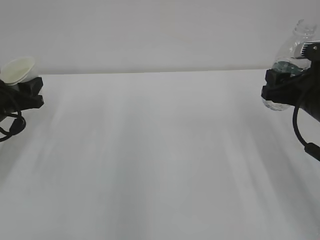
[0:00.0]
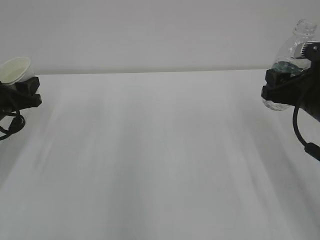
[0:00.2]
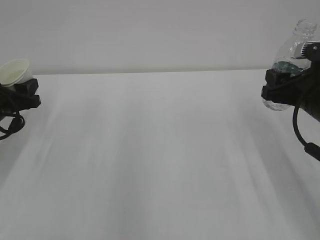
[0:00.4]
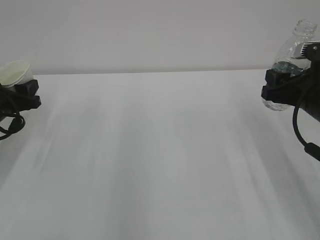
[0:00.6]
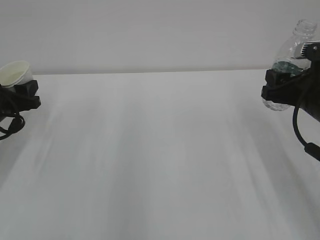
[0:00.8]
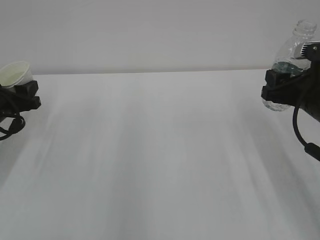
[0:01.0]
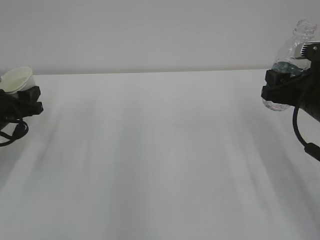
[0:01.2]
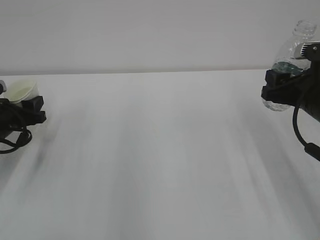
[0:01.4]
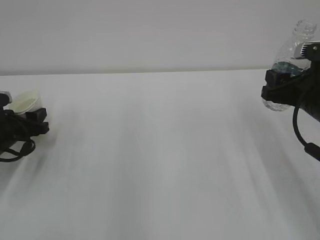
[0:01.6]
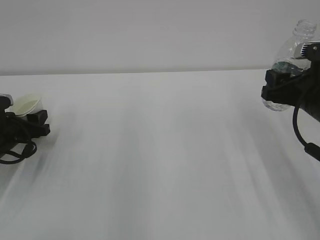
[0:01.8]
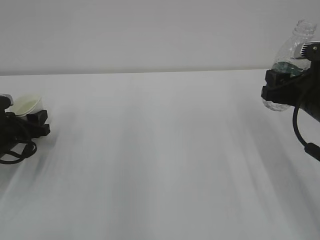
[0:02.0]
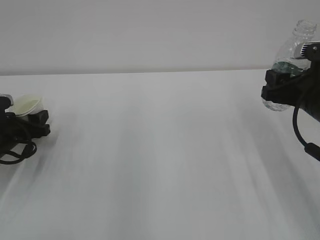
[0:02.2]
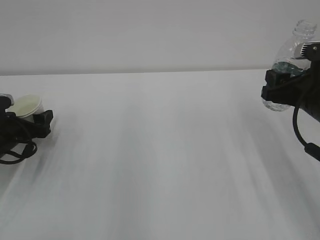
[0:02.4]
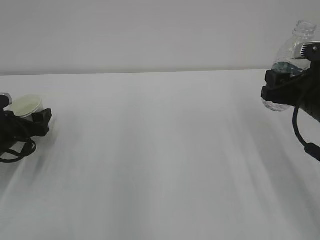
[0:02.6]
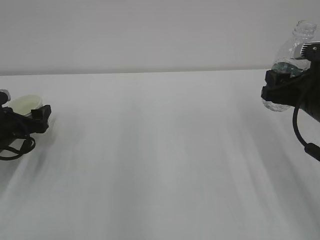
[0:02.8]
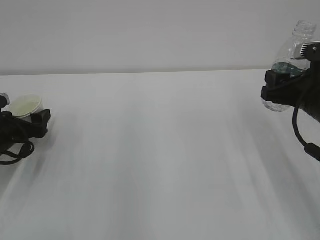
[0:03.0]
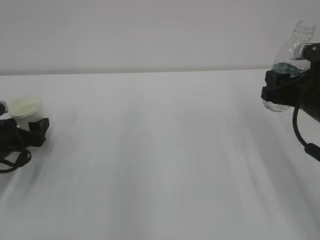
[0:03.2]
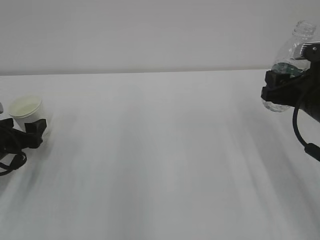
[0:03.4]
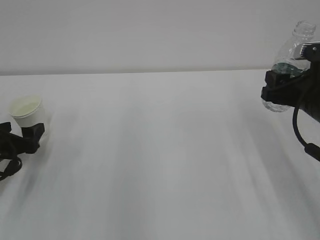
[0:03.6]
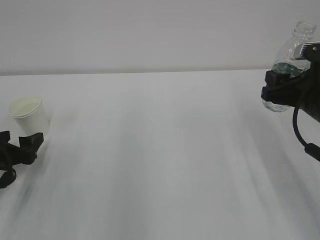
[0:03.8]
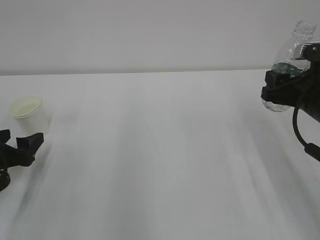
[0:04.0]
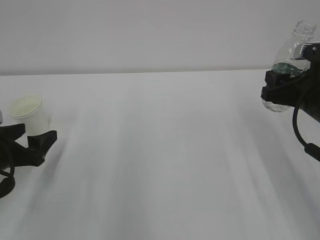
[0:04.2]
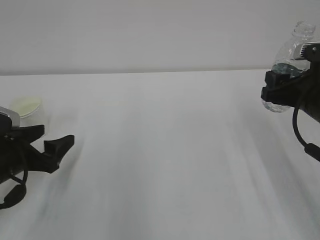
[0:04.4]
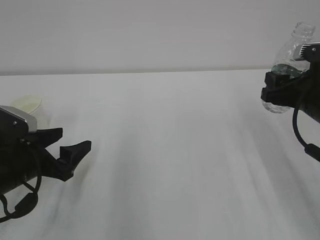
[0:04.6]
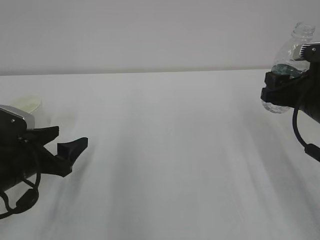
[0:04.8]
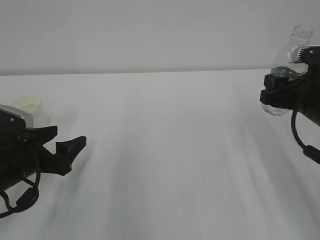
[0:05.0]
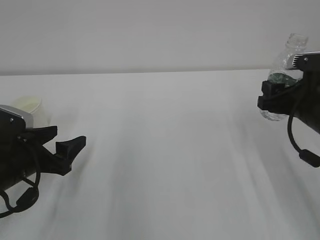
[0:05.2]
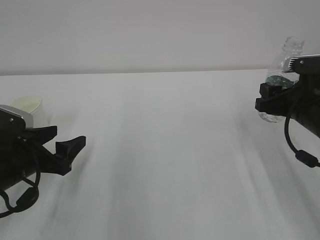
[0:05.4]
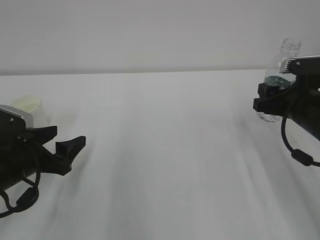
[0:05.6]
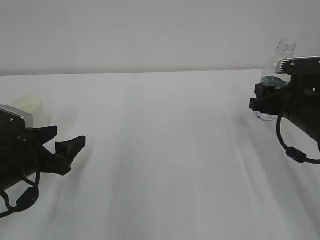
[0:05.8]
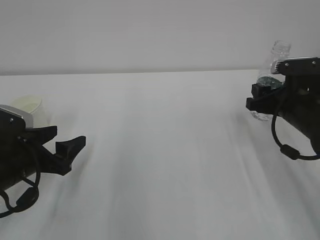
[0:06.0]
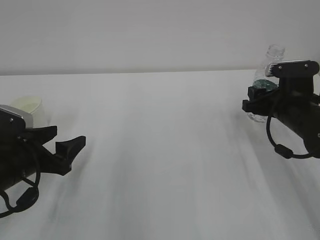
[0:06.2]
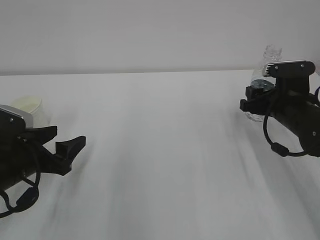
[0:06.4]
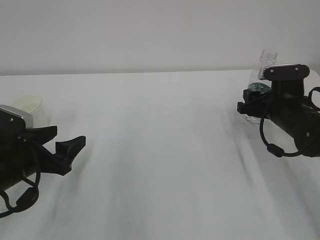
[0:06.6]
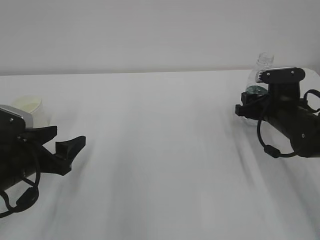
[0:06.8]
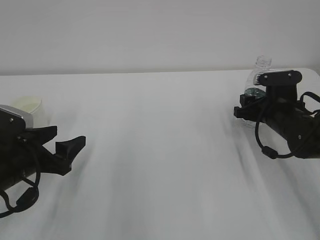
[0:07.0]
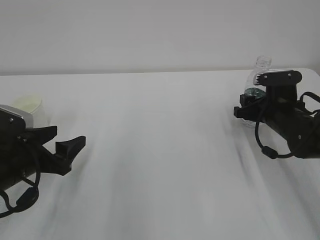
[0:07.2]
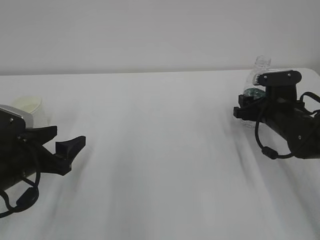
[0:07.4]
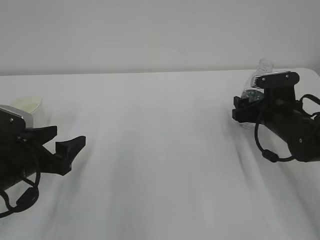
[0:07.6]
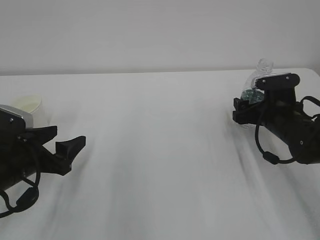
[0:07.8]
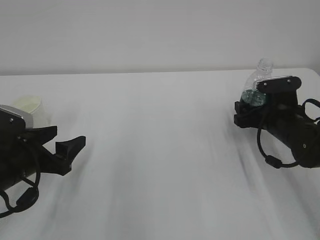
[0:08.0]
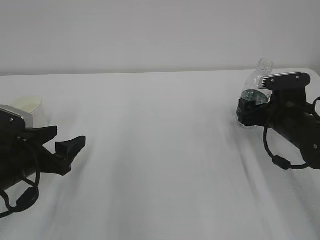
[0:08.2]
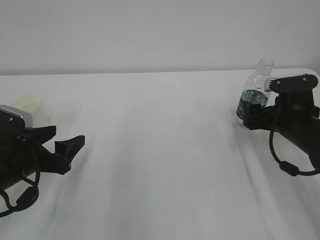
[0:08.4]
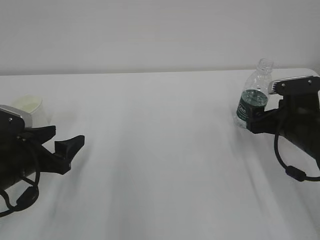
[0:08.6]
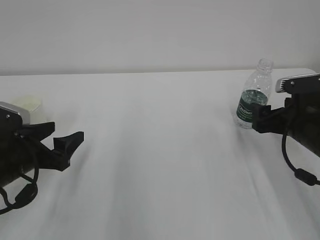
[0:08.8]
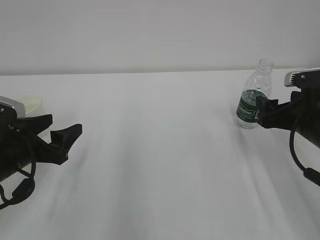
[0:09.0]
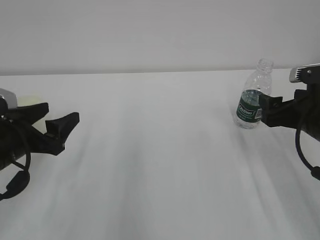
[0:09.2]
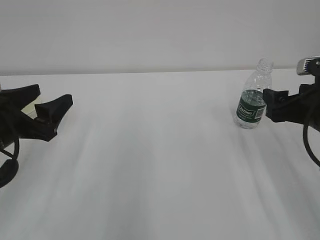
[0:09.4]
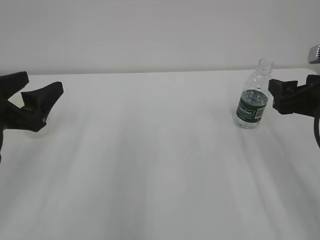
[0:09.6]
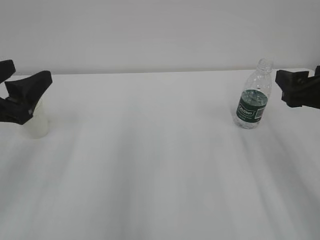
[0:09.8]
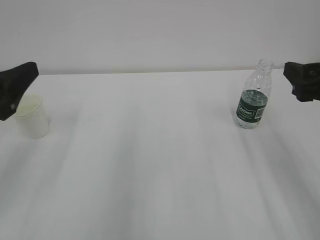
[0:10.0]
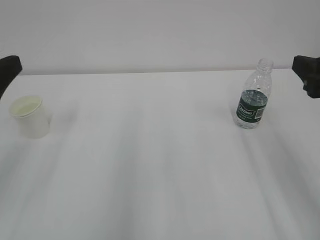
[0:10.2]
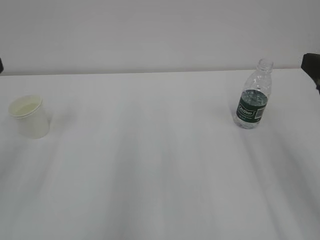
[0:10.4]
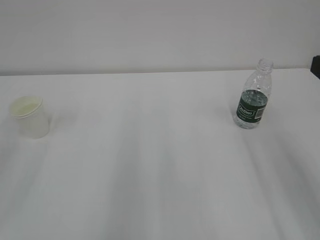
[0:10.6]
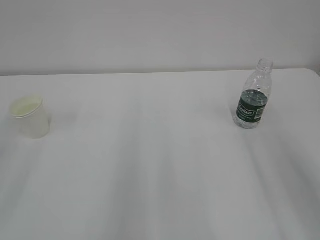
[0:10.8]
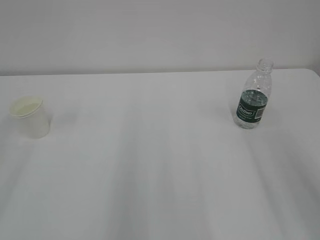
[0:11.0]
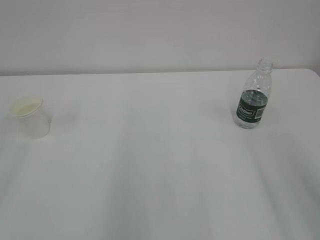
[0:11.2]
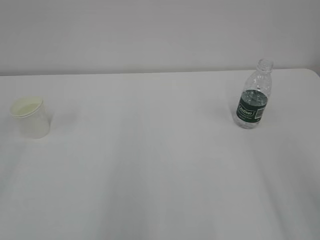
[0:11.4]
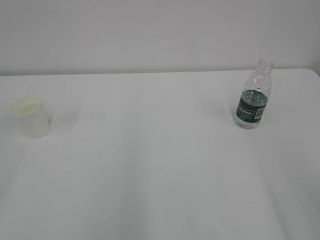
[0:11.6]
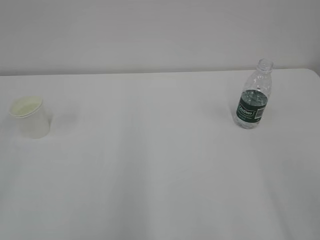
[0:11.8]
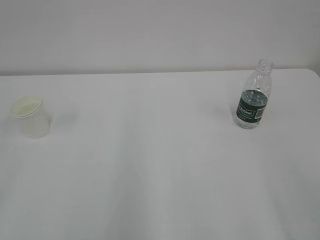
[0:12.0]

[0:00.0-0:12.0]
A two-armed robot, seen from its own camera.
0:00.0 to 0:01.6: The left gripper moves downward, about 5 cm.
0:01.6 to 0:03.0: The left gripper opens up.
0:03.0 to 0:04.4: The left gripper moves backward and to the right, approximately 10 cm.
0:04.4 to 0:06.0: The right gripper ends up some 5 cm from where it was.
0:06.0 to 0:07.6: The right gripper changes place by roughly 5 cm, and opens its fingers.
0:07.6 to 0:09.0: The right gripper travels backward and upward by roughly 10 cm.
0:09.0 to 0:10.4: Both grippers travel together upward and backward, about 15 cm.
